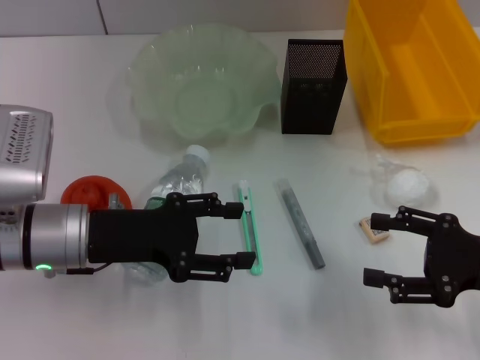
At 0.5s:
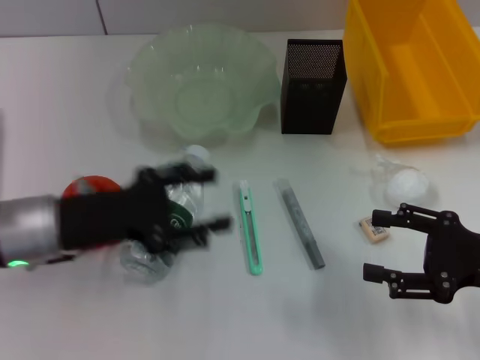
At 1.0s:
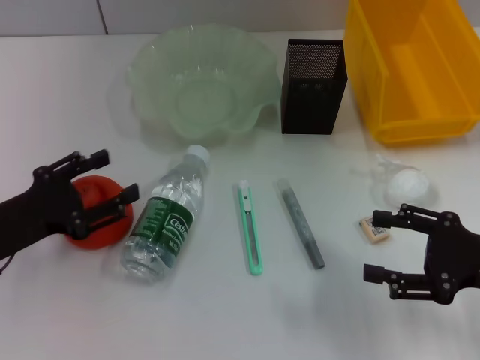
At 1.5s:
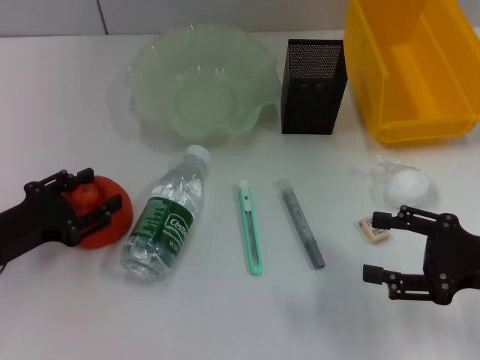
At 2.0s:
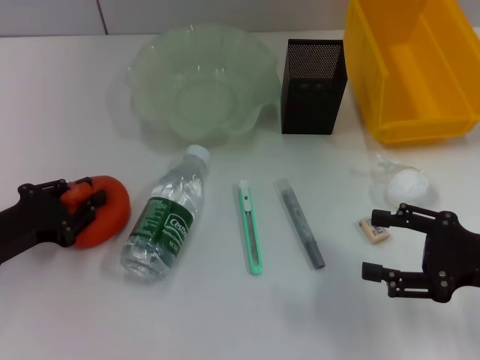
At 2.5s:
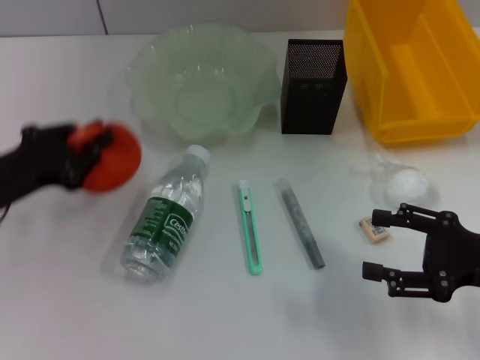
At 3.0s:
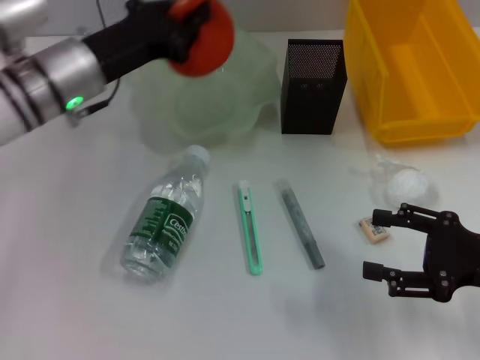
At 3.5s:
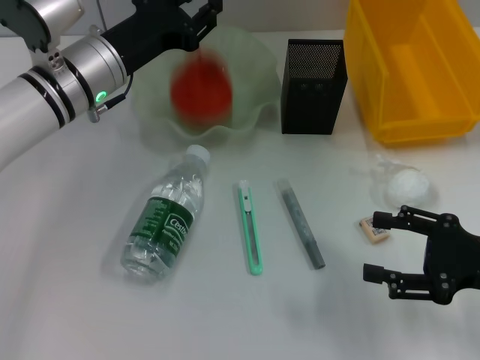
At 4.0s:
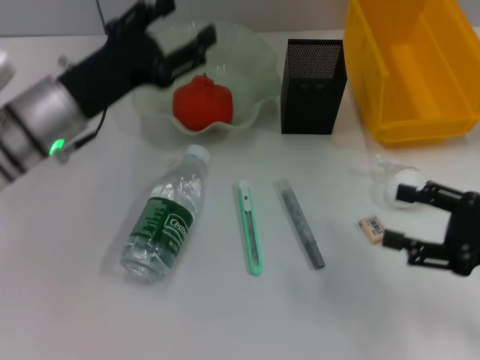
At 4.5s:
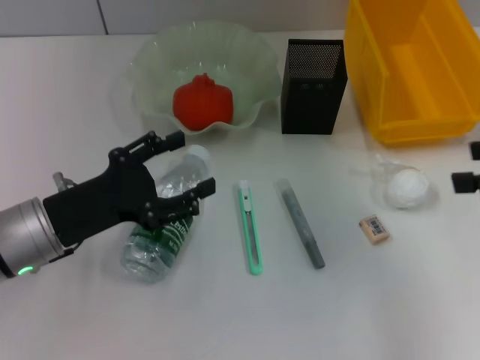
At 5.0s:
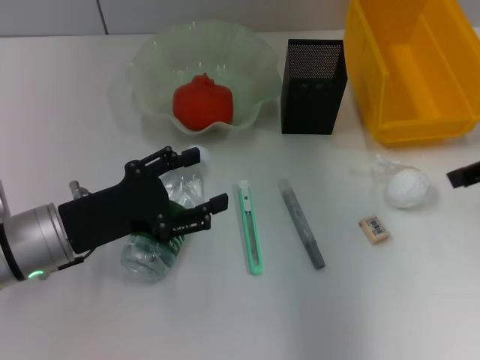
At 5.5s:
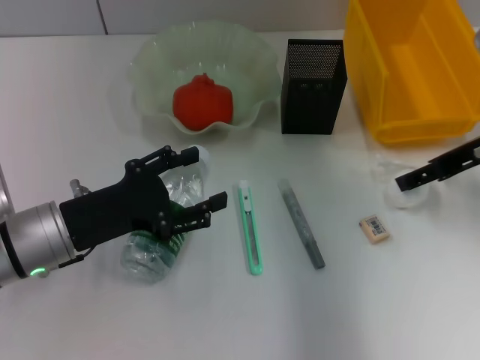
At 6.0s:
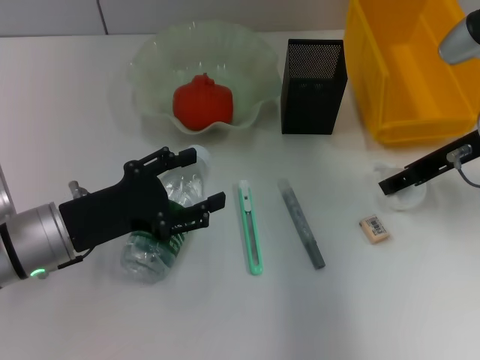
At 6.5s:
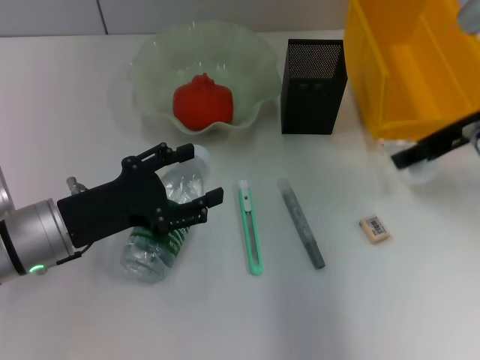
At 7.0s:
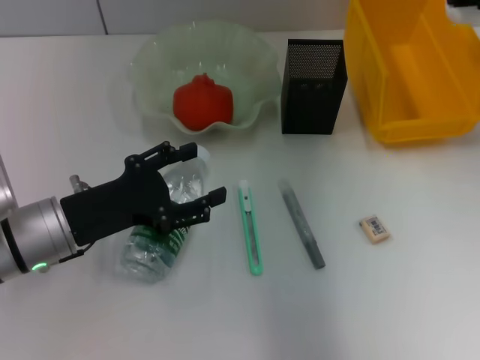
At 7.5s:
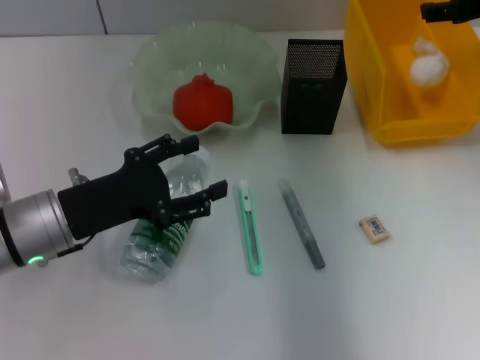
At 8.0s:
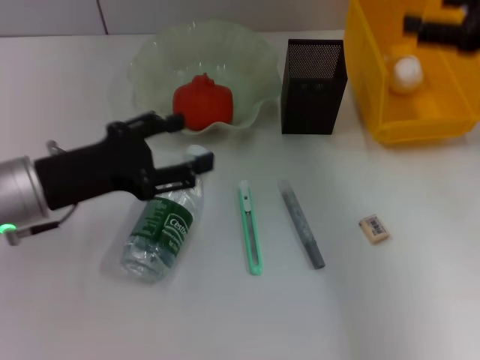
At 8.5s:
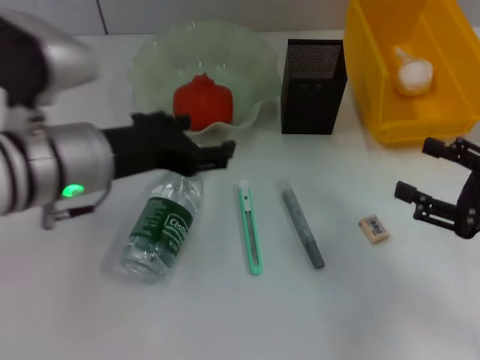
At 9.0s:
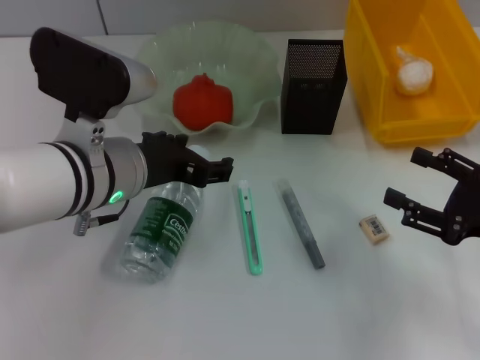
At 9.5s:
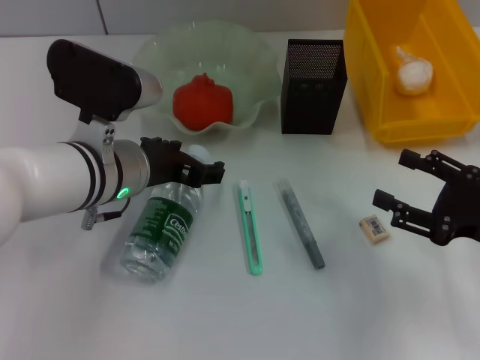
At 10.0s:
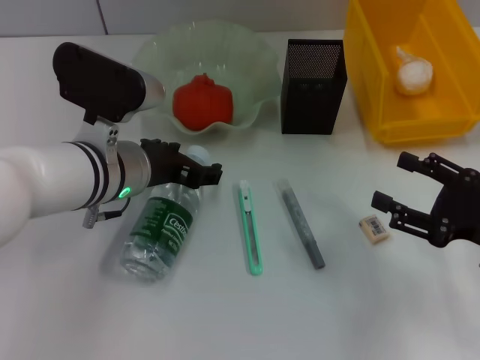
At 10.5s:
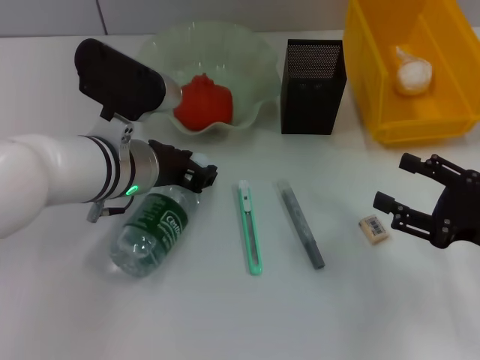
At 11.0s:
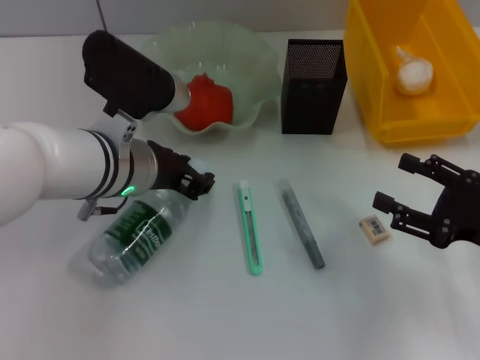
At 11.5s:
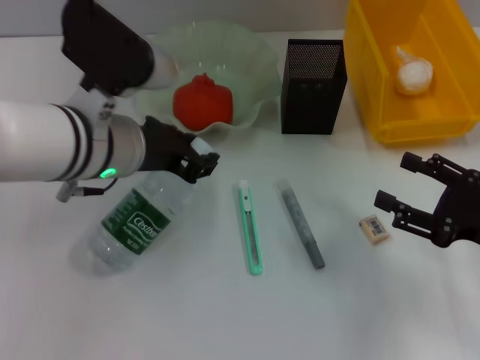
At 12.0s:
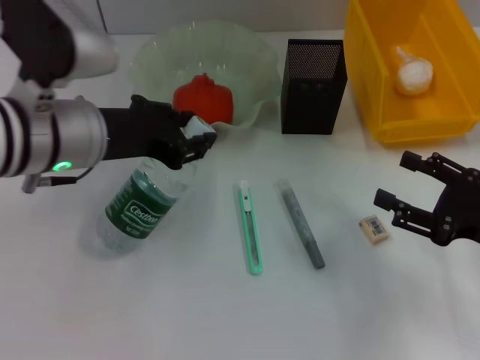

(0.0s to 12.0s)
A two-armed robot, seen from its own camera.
Step, 0.0s - 2.0s: Grab the orange with the left hand.
Step, 2.5s - 3.5s: Place the orange into the fruit bowl with the left hand.
Step, 4.0s - 6.0s: Grab the paper ball with the right hand.
Step, 6.5s - 7.5s: Place the paper ball into the trash can with the right hand.
Step, 8.0s - 11.0s: Grab the water bottle with the left hand.
0.0s - 2.0s: The left gripper heads to the left, covering some 10 cm, and closes up.
2.0s - 4.0s: The left gripper shifts about 15 cm to the right, forward and upward, and opens.
4.0s - 6.0s: The right gripper heads forward, to the left and upward, covering some 15 cm; the left gripper is displaced backward by roughly 10 cm.
6.0s - 8.0s: The right gripper shifts roughly 5 cm upward.
8.0s - 10.0s: The right gripper is displaced downward and backward by approximately 20 cm; the left gripper is displaced to the right by roughly 10 cm.
10.0s - 12.0s: The left gripper goes some 5 cm upward, and closes up.

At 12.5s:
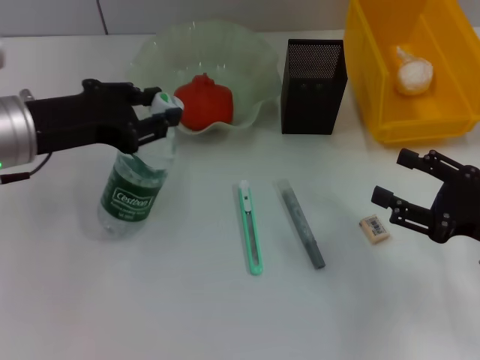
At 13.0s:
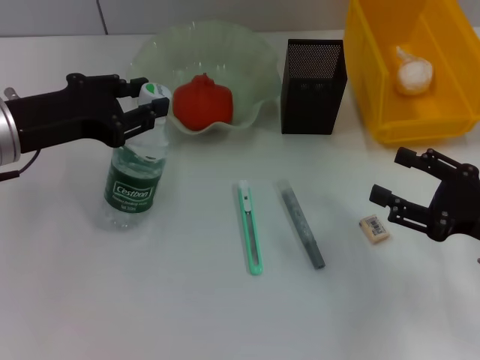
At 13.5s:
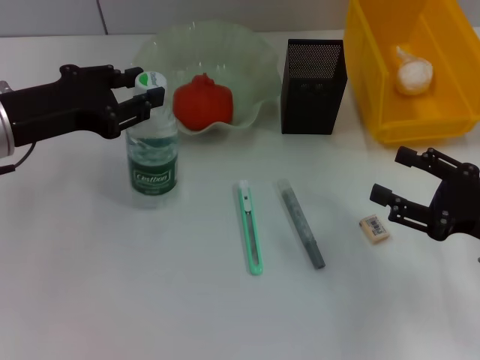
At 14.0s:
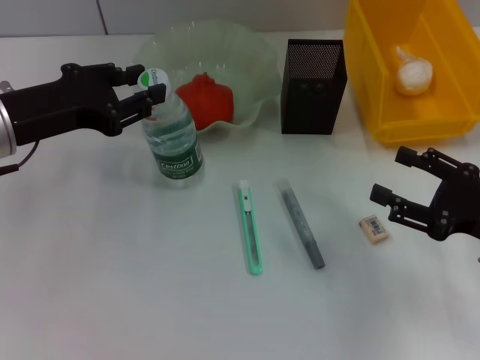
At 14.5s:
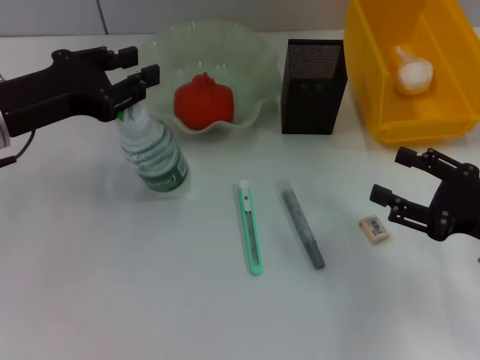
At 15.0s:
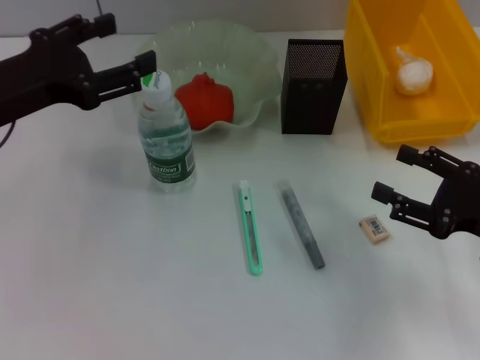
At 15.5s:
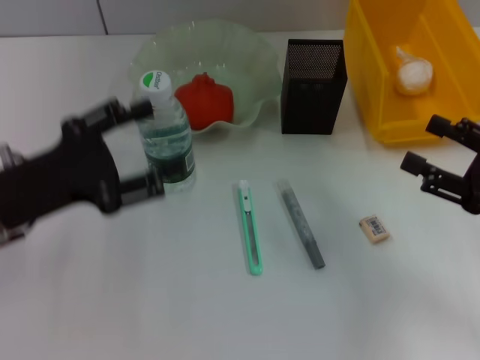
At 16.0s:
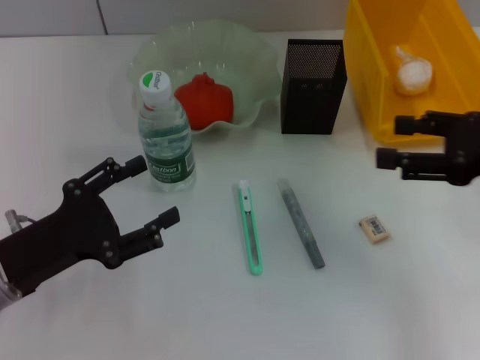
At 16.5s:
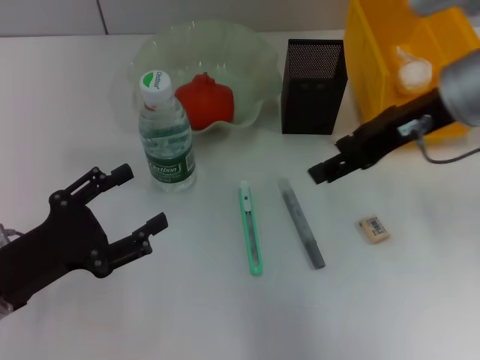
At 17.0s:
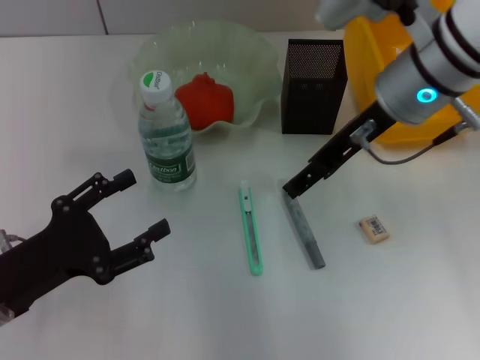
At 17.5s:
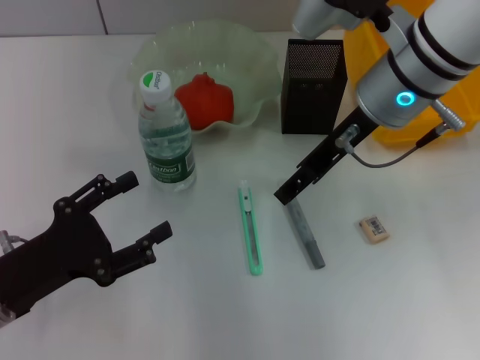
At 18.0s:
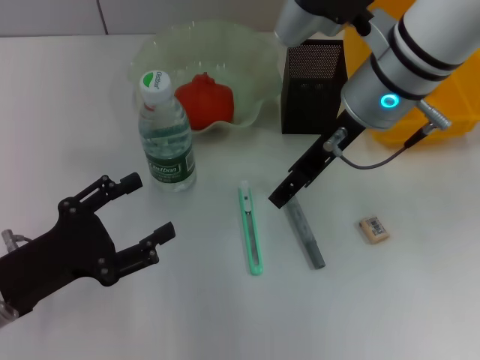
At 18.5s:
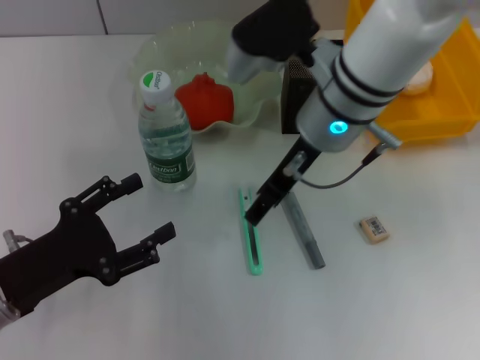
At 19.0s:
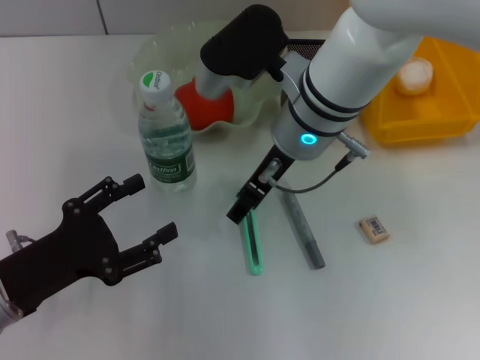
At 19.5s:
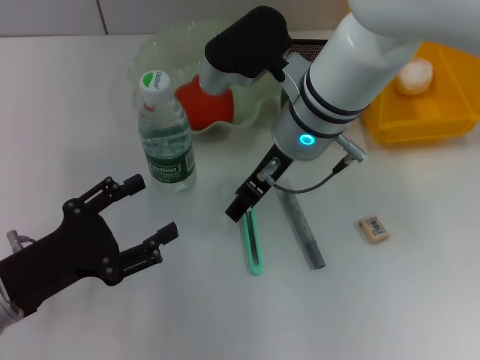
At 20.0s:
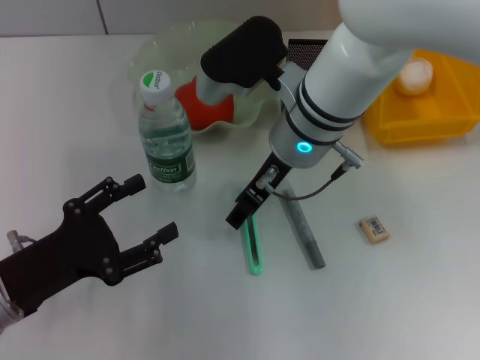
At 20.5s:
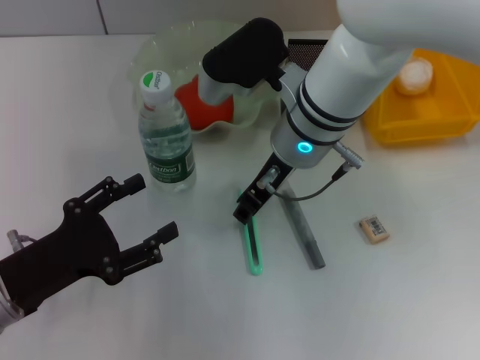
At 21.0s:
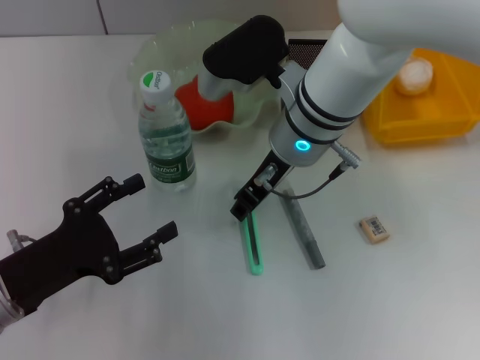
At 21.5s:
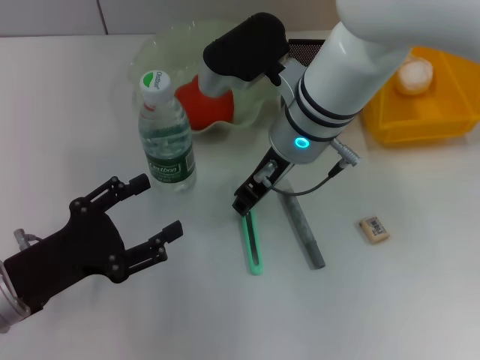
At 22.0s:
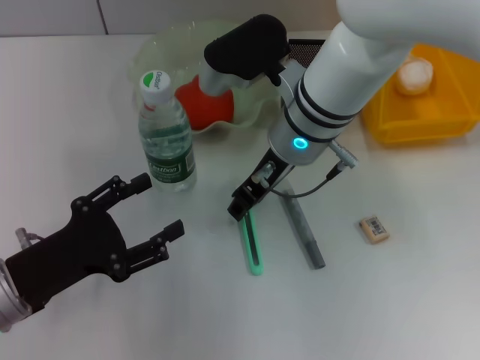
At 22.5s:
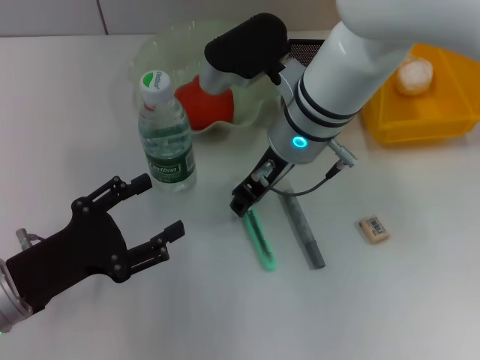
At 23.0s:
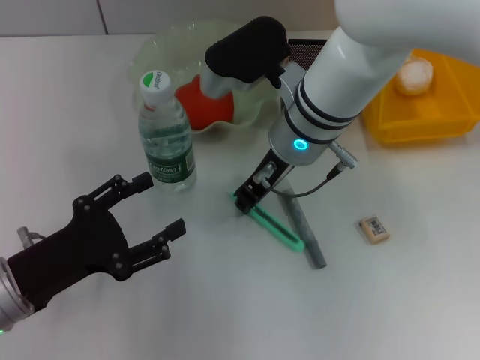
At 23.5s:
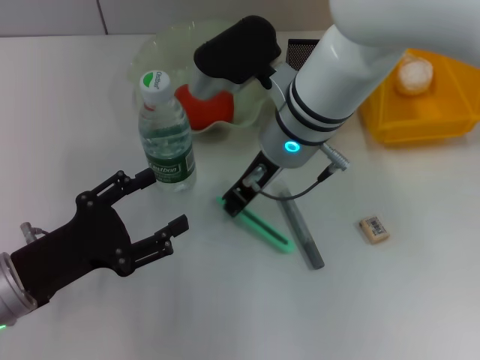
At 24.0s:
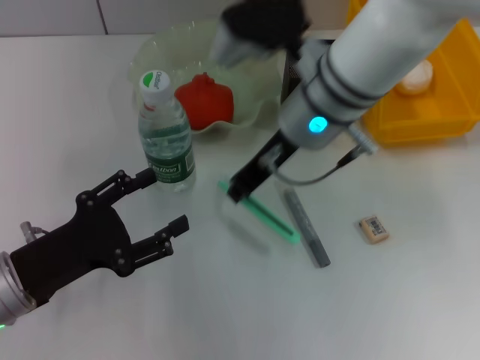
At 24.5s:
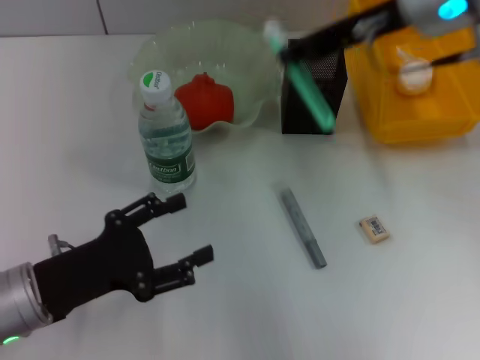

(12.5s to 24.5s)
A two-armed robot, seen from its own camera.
Step, 12.5s - 14.5s: Place the water bottle on the table with the left hand.
Step, 15.0s - 23.0s: Grab the blue utility knife with the right hand.
12.5s - 14.5s: The grippers stay close to where they were, moving slightly.
14.5s - 16.5s: The left gripper moves backward and downward, some 15 cm, and opens. The right gripper shifts about 20 cm upward, forward and to the left.
16.5s - 18.5s: The right gripper goes approximately 10 cm to the left.
18.5s - 20.5s: There are only small adjustments of the grippers.
20.5s - 22.5s: Both grippers stay put.
22.5s - 24.5s: The right gripper travels upward and to the right by about 15 cm, and closes its fingers.

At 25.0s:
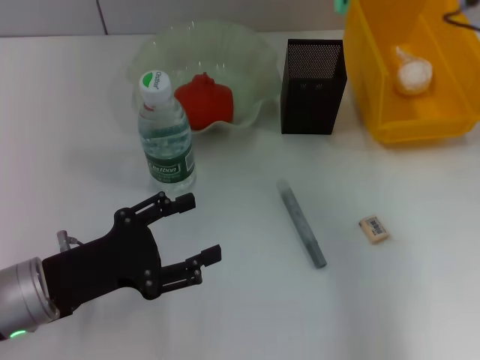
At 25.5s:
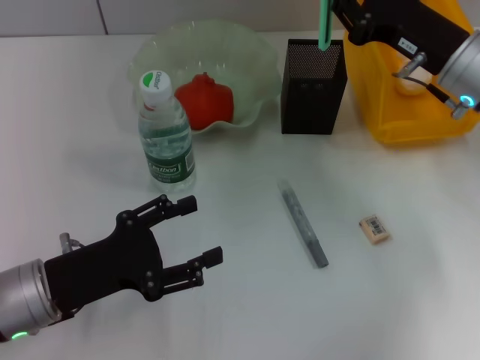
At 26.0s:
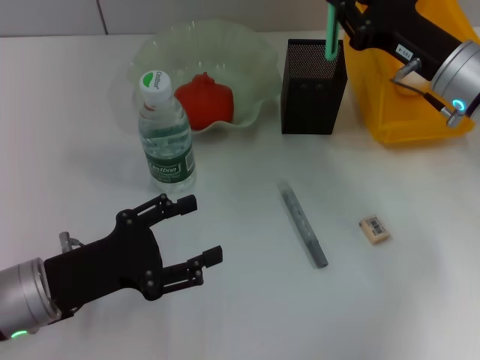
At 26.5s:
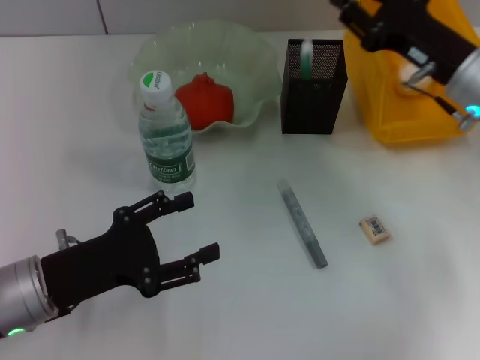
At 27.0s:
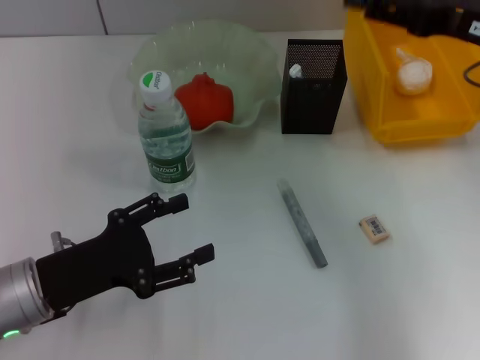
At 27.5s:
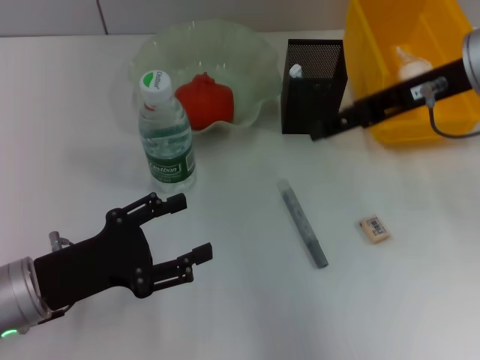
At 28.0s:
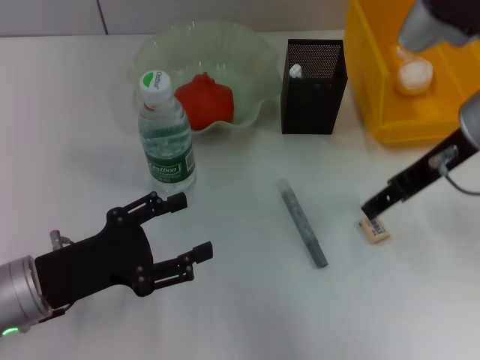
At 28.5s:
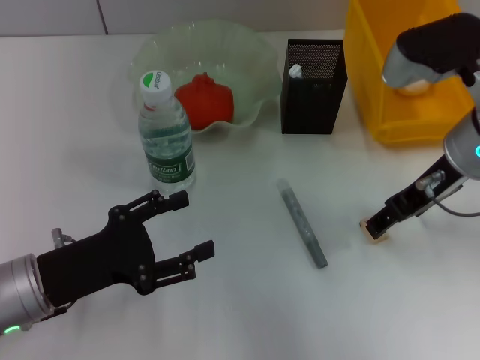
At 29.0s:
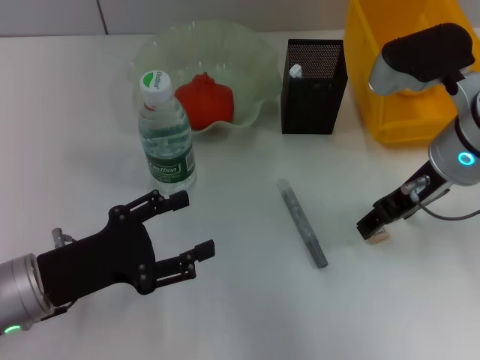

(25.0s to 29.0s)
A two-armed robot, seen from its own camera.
25.0s - 27.0s: The right gripper moves about 10 cm downward and comes back, and opens.
27.0s - 29.0s: The right gripper goes roughly 10 cm to the left and downward.
